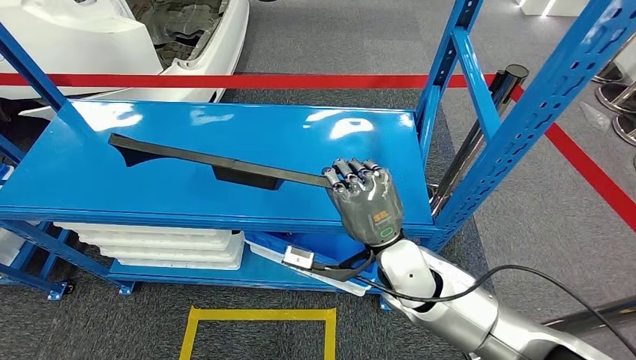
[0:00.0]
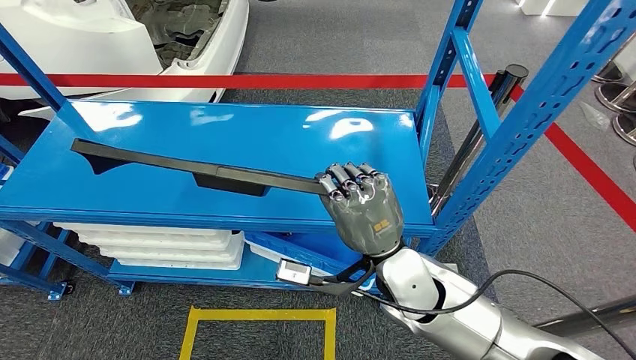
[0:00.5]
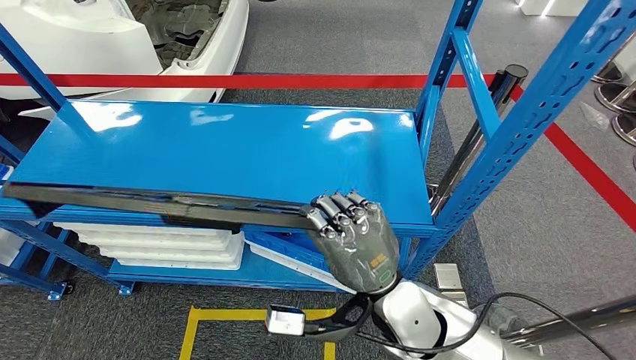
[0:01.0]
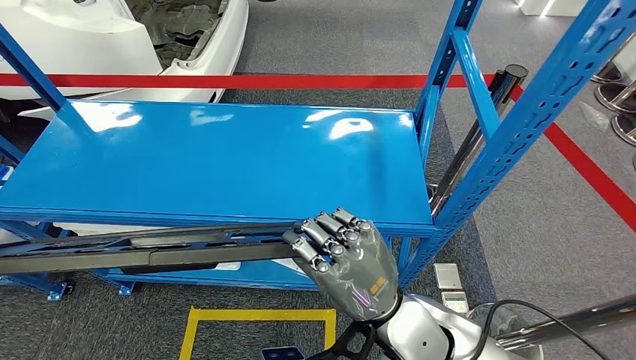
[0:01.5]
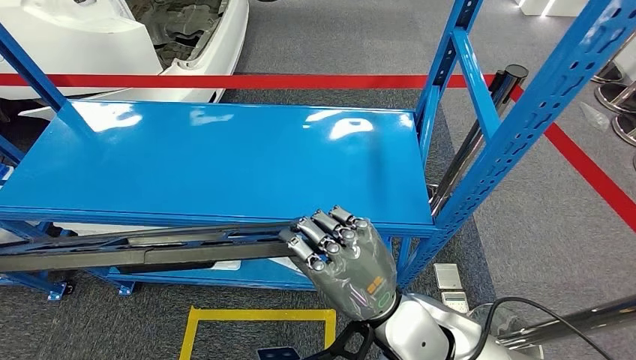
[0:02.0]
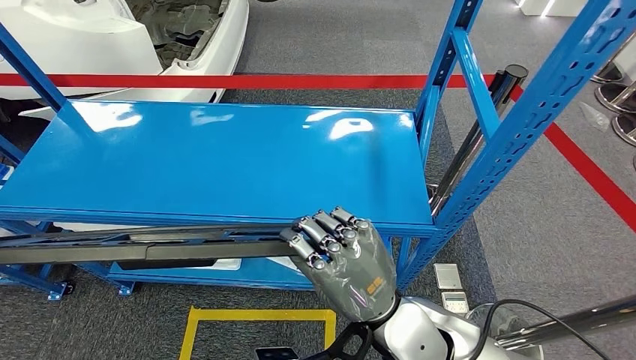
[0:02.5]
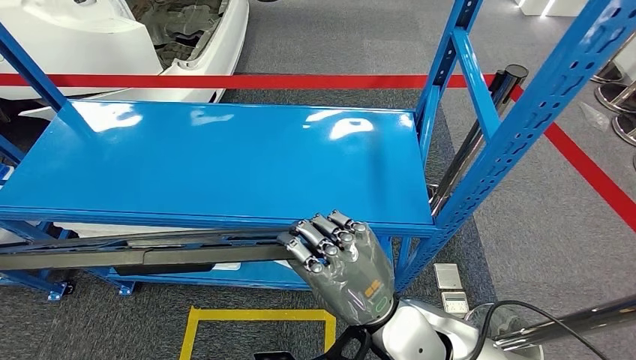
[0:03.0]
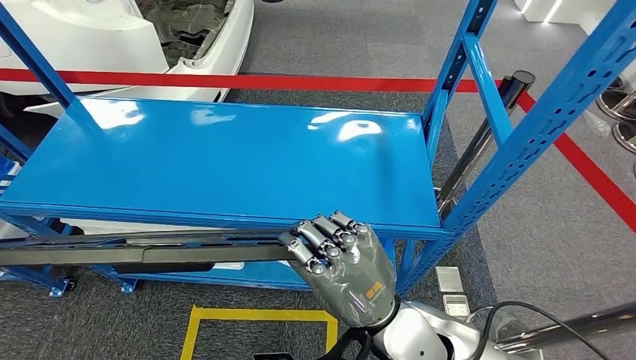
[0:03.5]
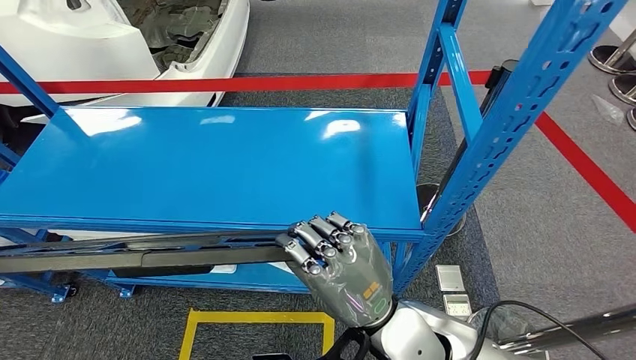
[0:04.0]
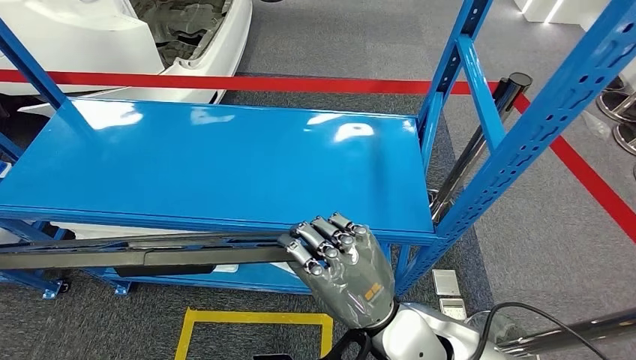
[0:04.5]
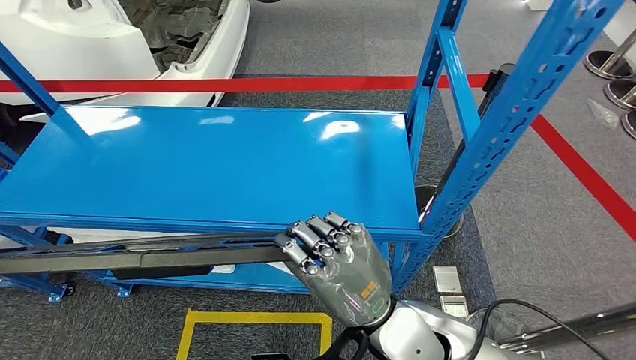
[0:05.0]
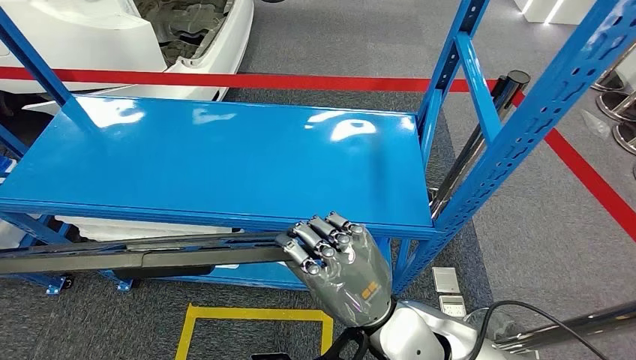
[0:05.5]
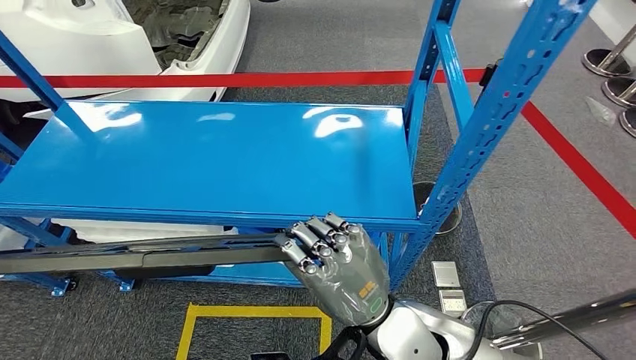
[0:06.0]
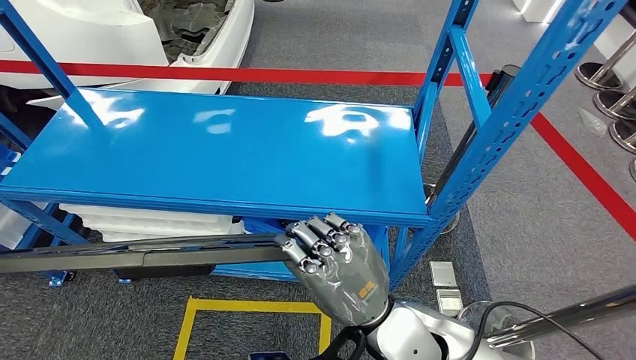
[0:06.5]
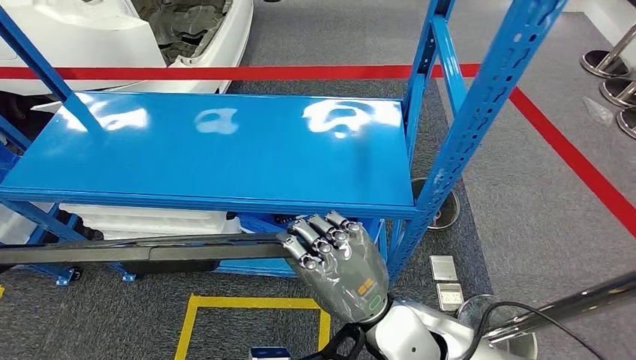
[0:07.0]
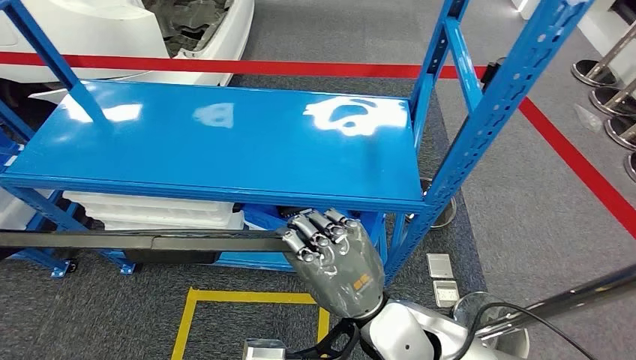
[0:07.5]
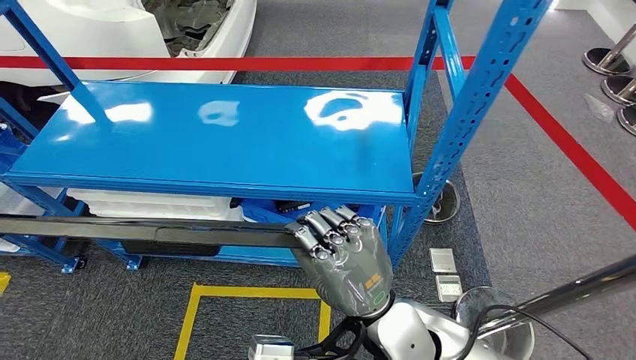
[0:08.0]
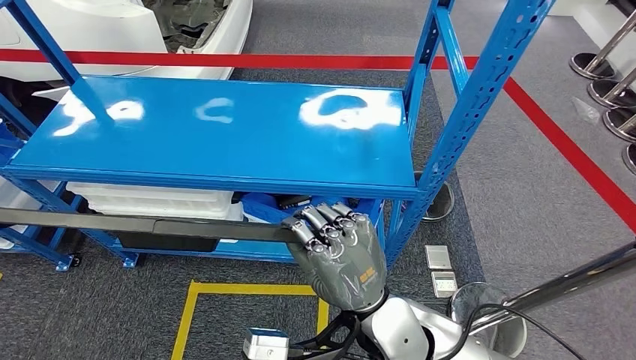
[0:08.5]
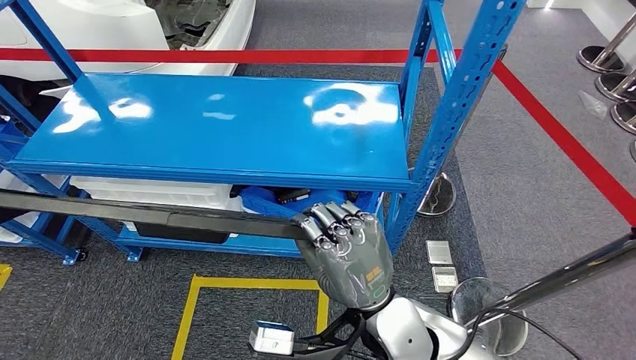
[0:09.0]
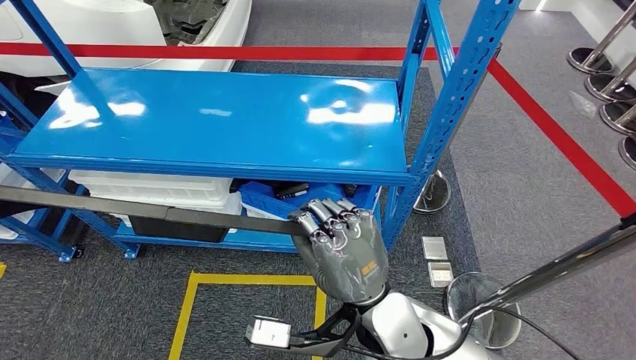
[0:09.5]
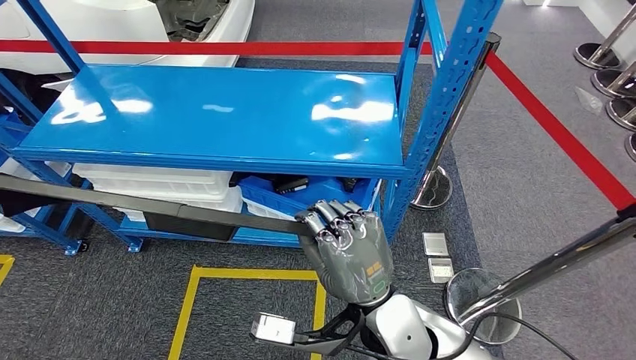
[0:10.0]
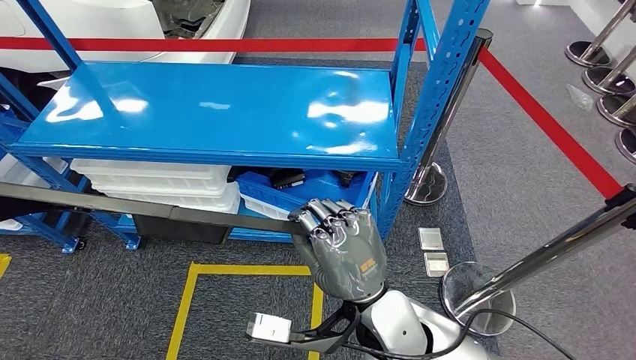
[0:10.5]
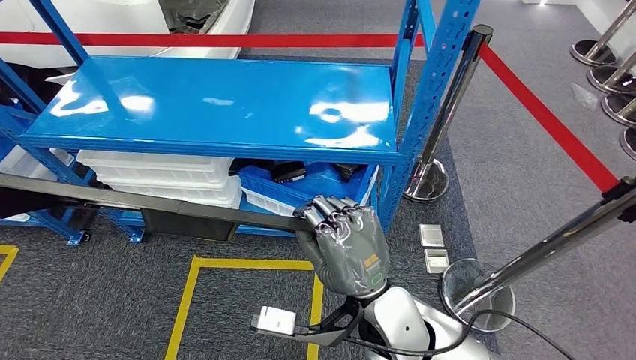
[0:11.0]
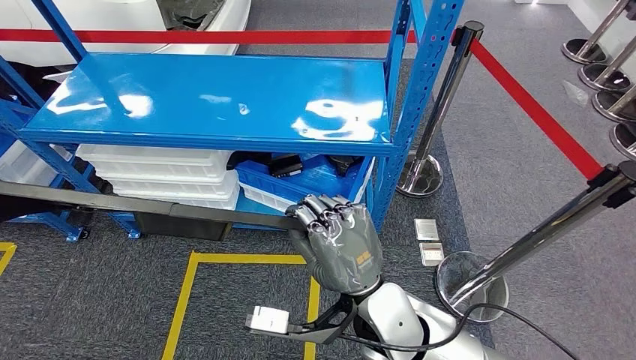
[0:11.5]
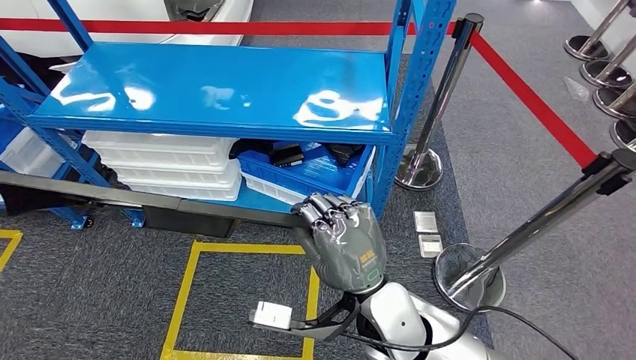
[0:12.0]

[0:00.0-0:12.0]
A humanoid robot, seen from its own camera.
Step, 0:00.0 to 0:05.0: Pick up the large parts from the shelf.
0:00.0 to 0:02.0: The right hand travels backward by some 10 cm.

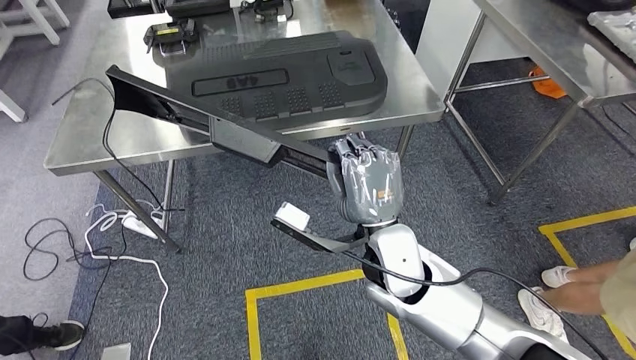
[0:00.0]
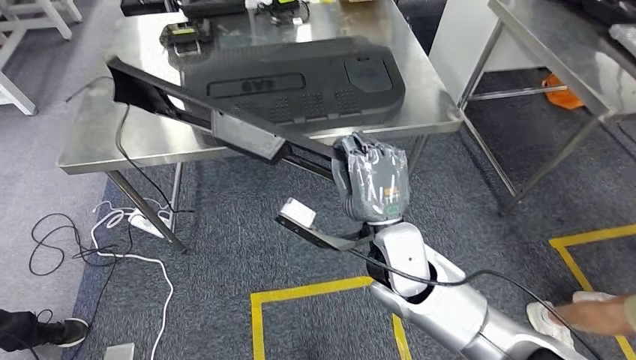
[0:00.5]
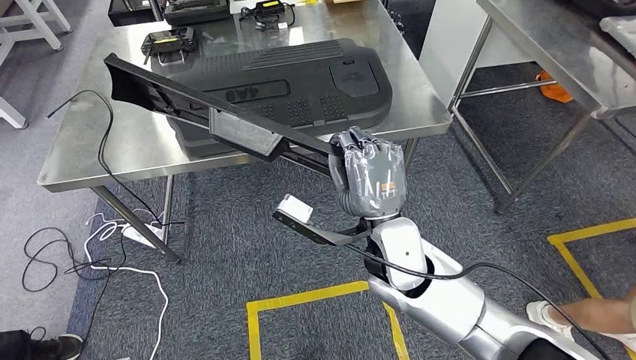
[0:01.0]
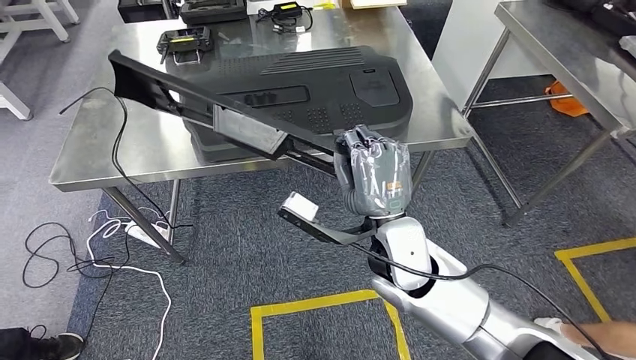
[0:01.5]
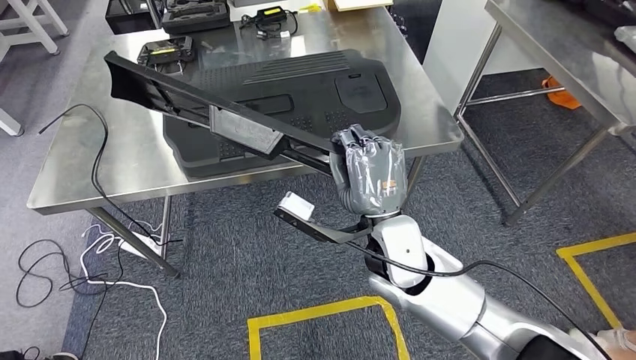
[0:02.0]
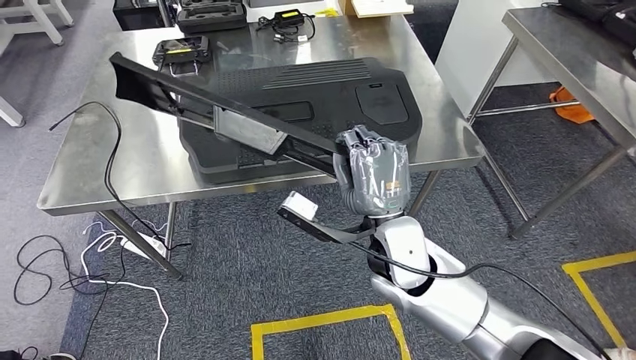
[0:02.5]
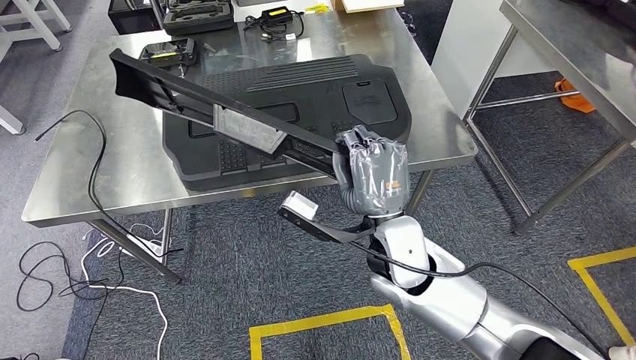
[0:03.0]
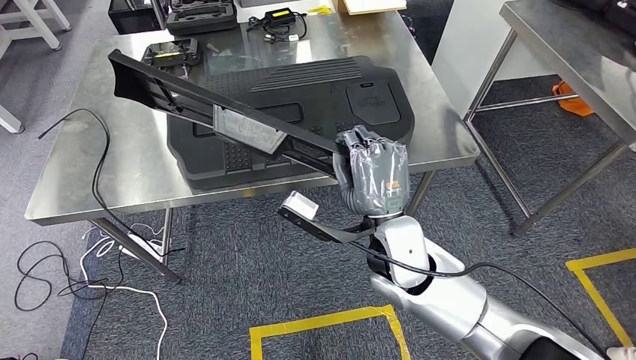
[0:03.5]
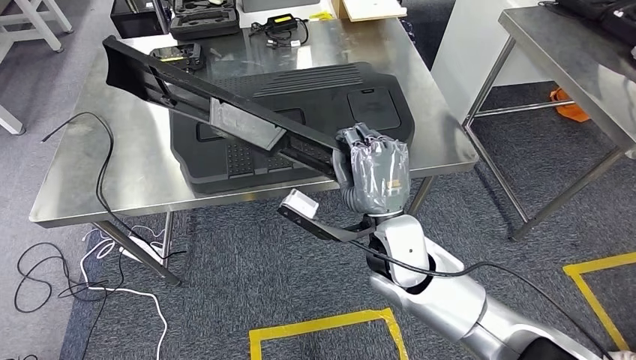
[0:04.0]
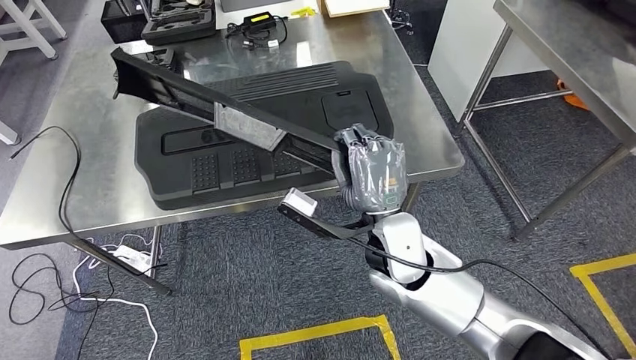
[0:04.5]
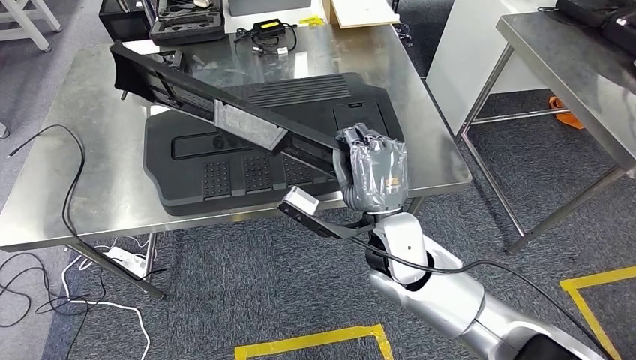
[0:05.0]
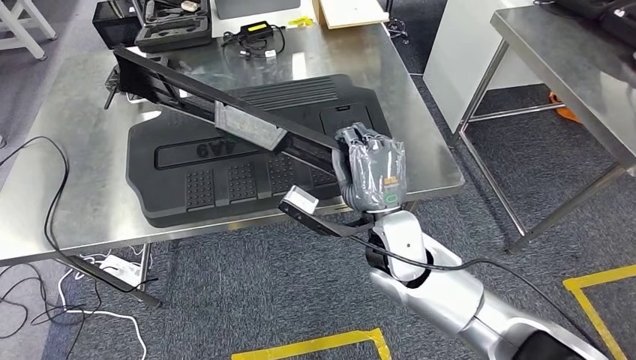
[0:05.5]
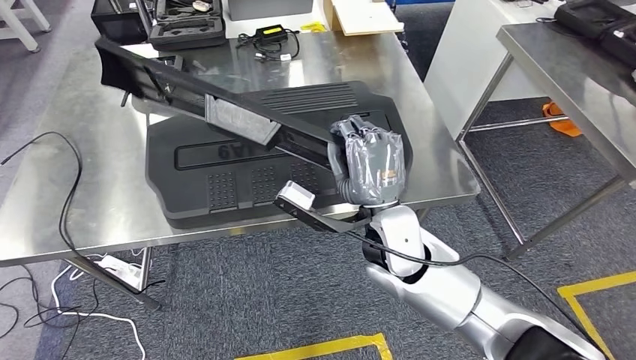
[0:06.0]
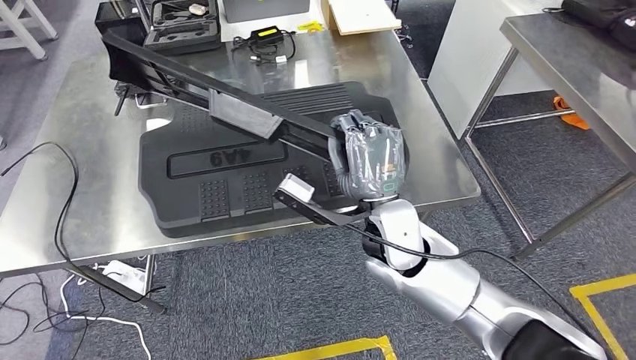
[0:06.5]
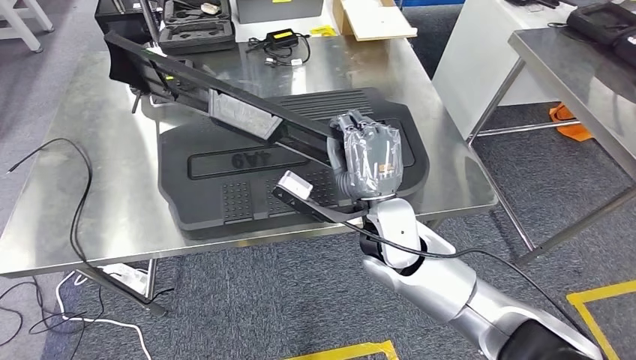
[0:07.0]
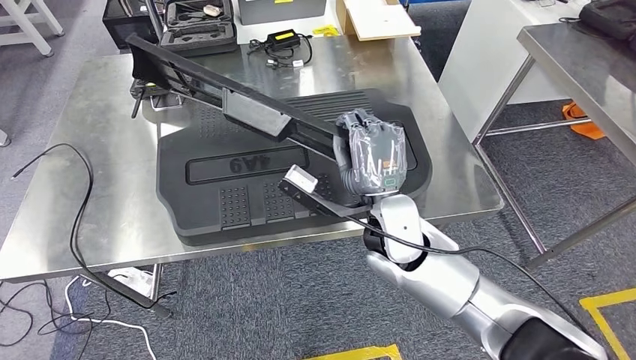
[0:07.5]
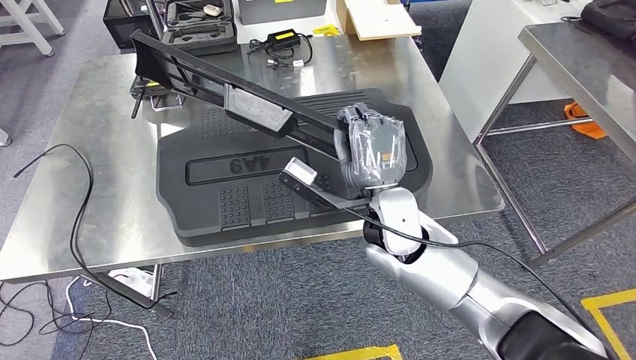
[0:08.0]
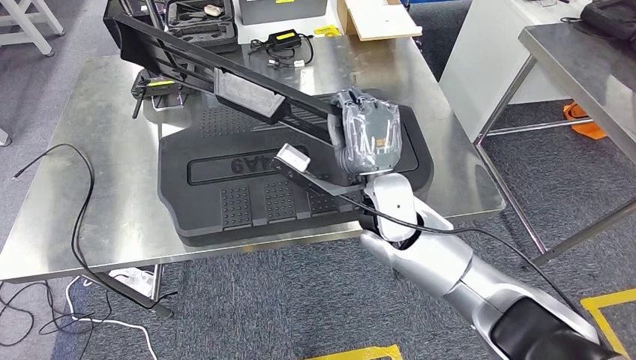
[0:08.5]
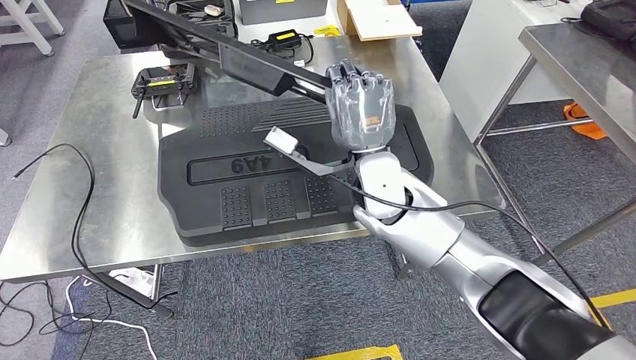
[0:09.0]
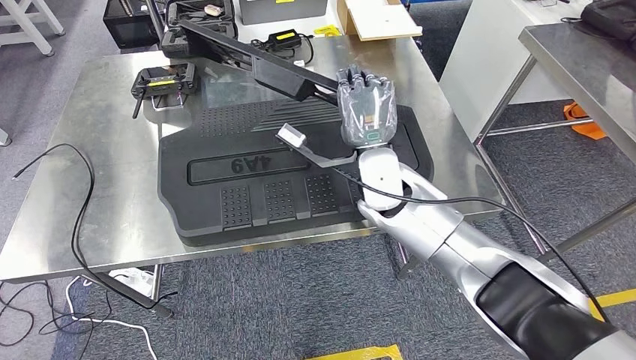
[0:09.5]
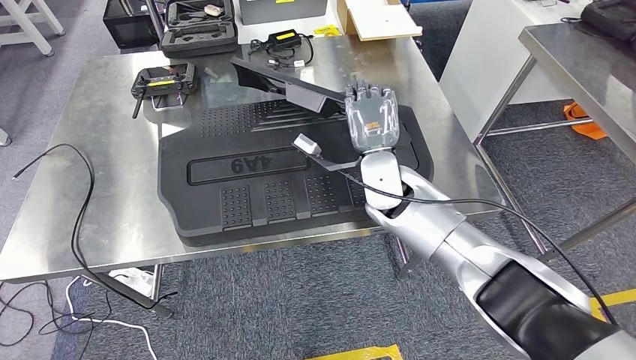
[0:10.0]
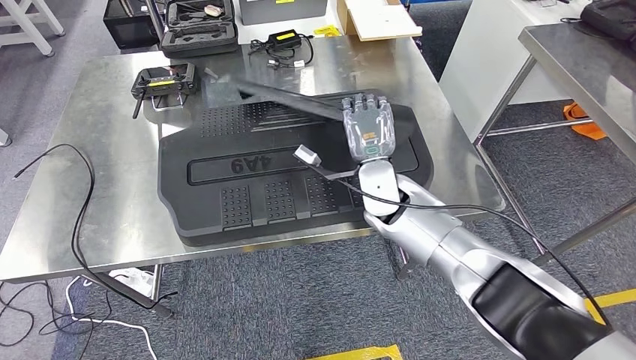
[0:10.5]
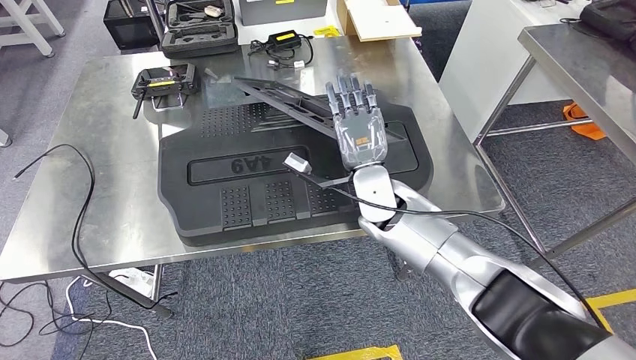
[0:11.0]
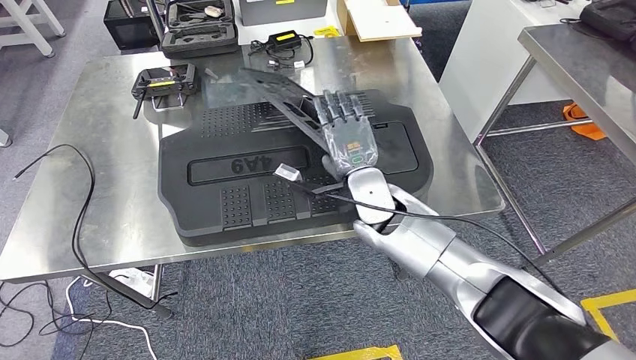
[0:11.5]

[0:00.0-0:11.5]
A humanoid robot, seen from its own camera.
0:07.5 to 0:09.5: The right hand shifts about 10 cm forward.
